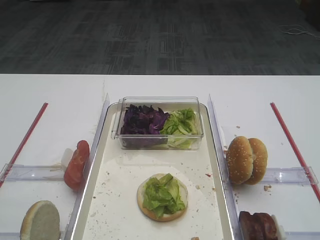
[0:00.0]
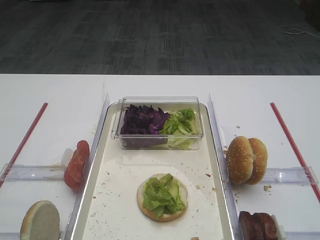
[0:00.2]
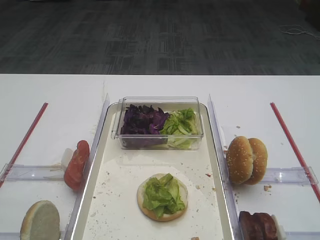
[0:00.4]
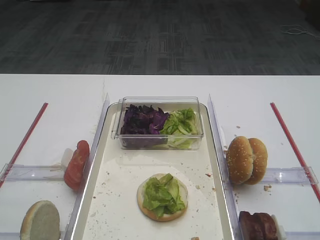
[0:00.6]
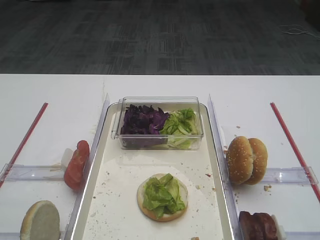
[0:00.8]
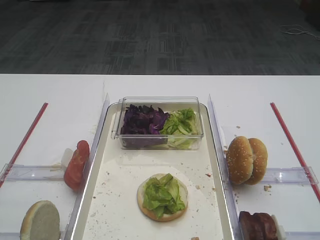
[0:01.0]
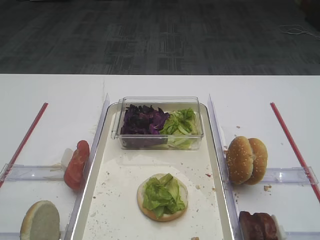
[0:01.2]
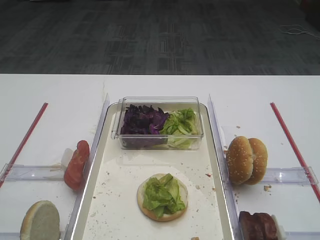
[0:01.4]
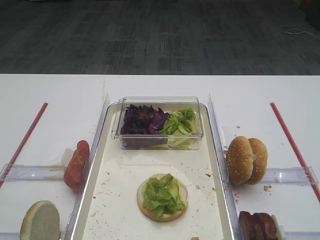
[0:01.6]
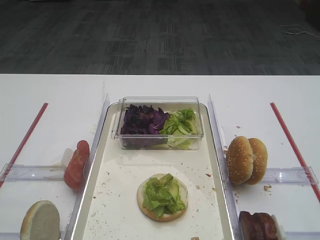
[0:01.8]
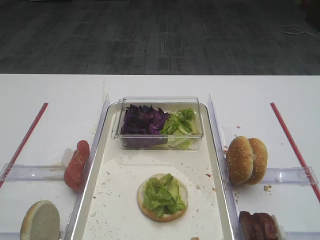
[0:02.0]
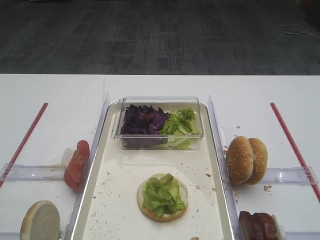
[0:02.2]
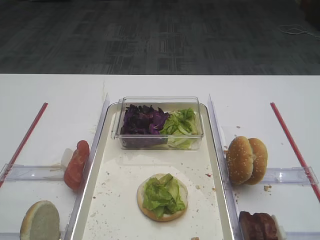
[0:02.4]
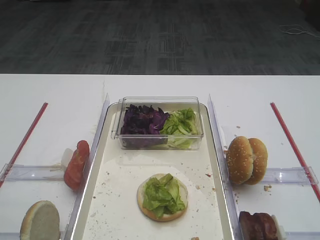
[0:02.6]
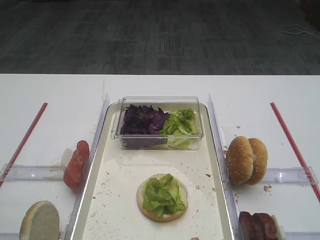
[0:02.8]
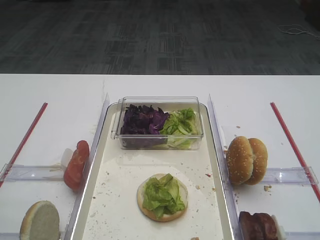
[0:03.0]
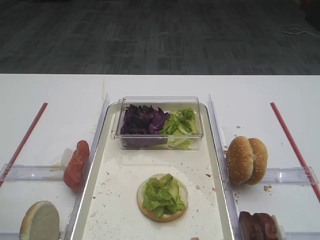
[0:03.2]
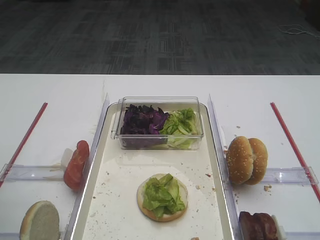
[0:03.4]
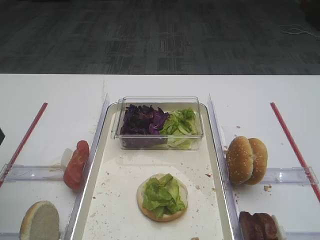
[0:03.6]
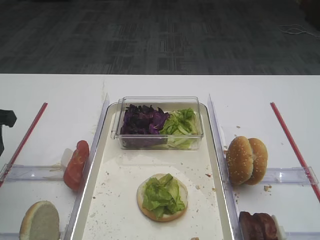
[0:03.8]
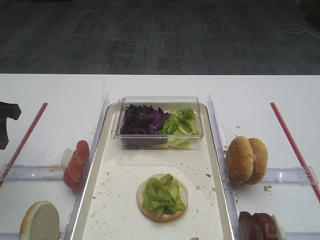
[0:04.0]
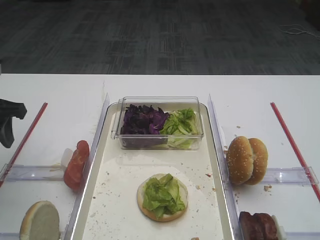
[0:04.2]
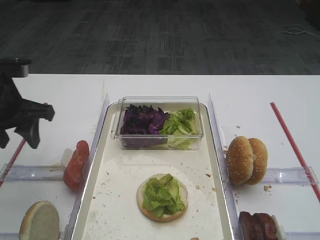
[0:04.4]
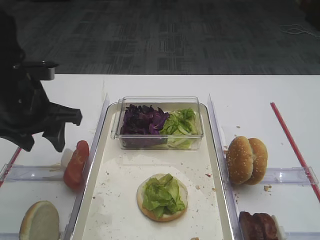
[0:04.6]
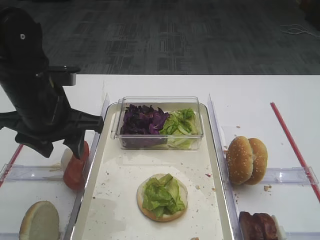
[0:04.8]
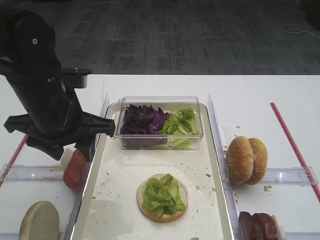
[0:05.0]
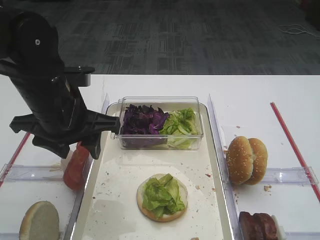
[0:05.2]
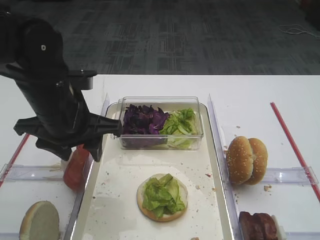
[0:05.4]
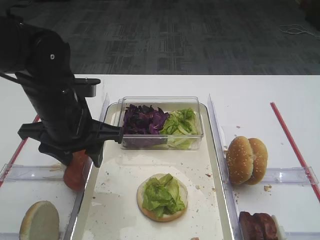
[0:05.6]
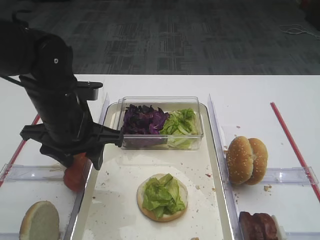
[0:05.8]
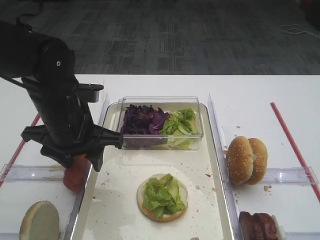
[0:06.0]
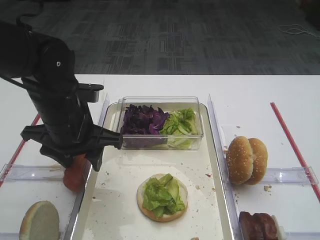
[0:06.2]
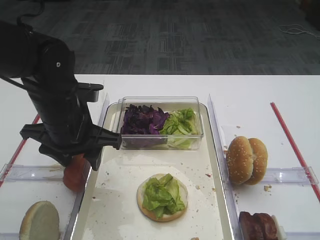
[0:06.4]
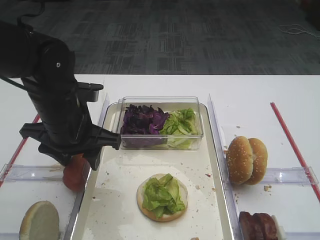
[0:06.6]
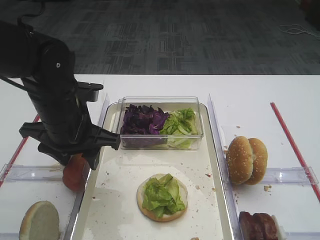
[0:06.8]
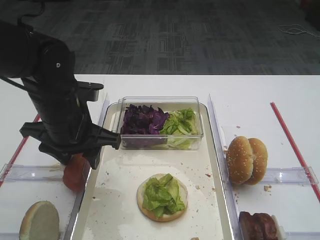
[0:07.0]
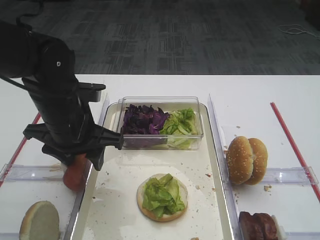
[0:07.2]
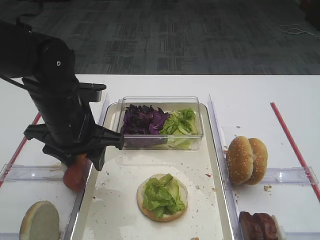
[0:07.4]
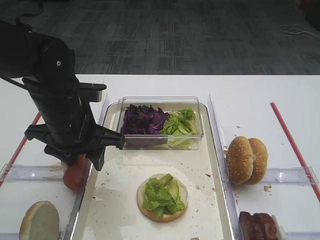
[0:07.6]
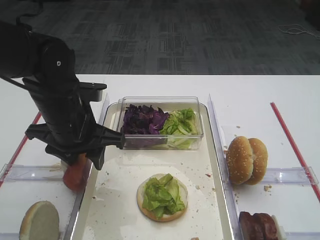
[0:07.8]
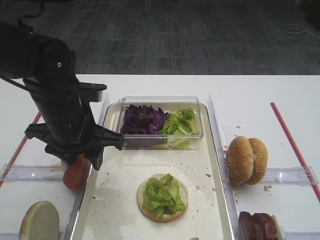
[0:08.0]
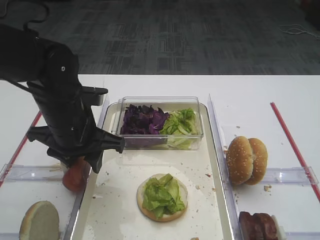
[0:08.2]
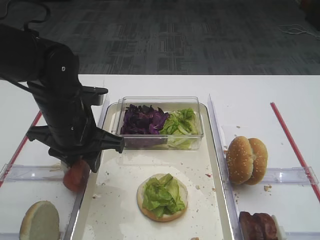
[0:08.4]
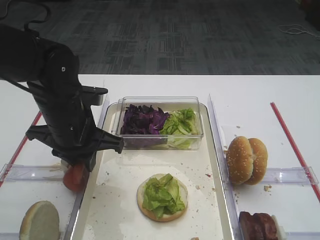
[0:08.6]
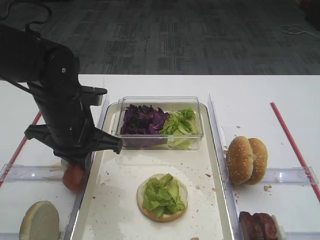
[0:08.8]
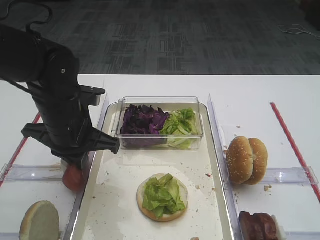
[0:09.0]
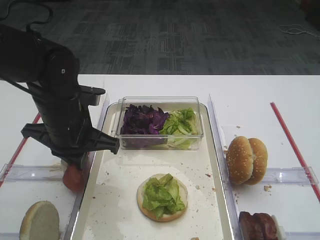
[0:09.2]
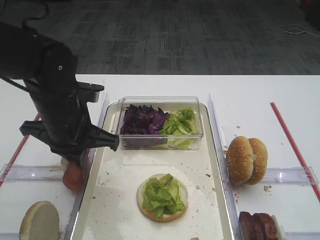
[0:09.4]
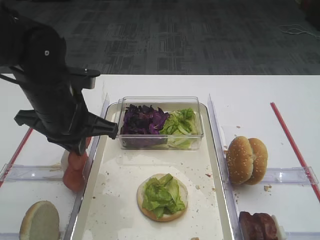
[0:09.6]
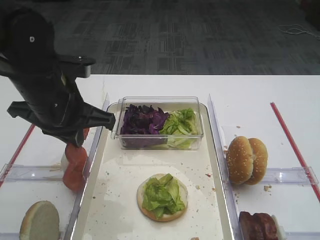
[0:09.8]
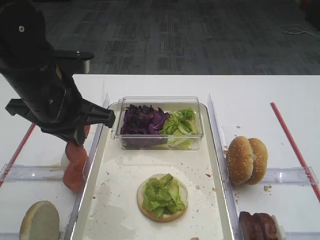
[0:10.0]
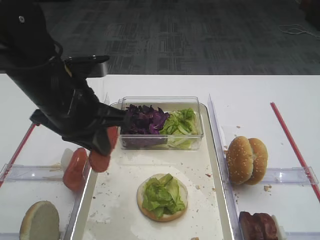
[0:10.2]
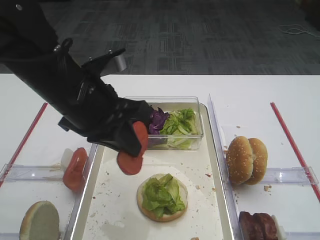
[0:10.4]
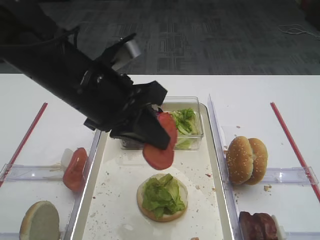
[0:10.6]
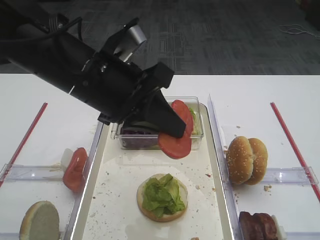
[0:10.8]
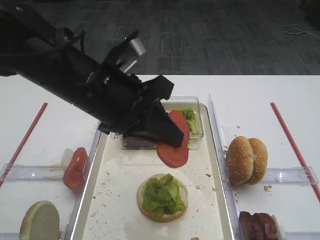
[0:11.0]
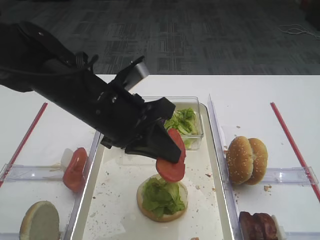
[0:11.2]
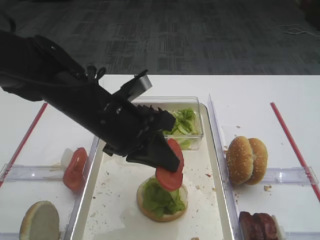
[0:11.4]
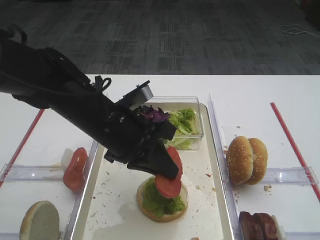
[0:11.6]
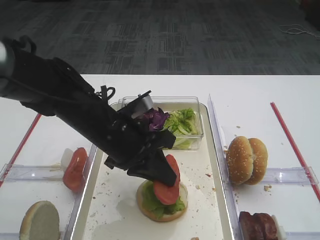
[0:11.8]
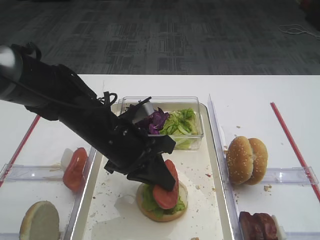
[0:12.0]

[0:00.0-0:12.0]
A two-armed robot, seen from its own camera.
Step, 0:00.0 to 0:09.8: Pick up the tomato slice with the left gripper.
0:03.0 to 0:04.4: The left gripper goes roughly 20 cm forward.
0:04.4 to 0:06.0: The left gripper shifts approximately 10 cm to the right.
0:06.0 to 0:07.6: The two grippers keep their place.
0:07.6 to 0:09.0: The left gripper closes its fingers.
0:09.0 to 0:10.4: The left gripper goes roughly 5 cm upward.
0:10.4 to 0:12.0: The left gripper heads downward, covering about 10 cm.

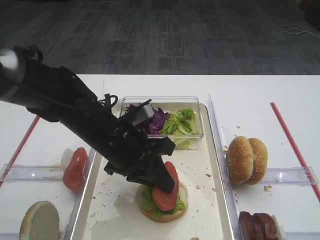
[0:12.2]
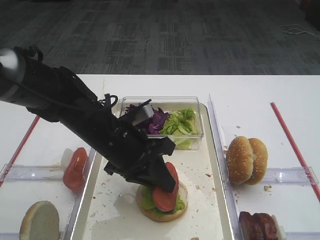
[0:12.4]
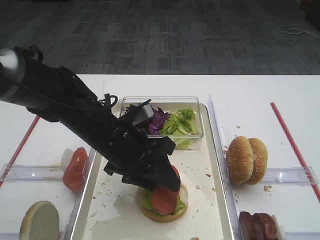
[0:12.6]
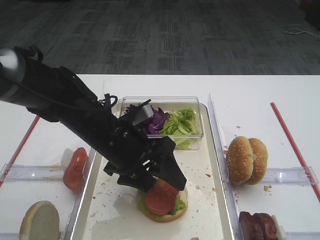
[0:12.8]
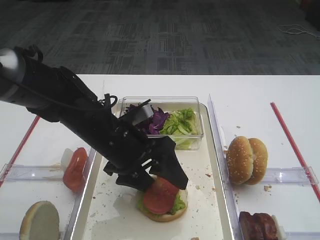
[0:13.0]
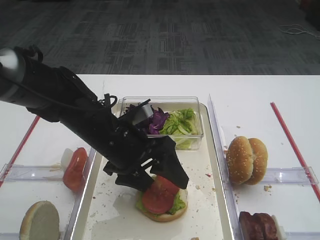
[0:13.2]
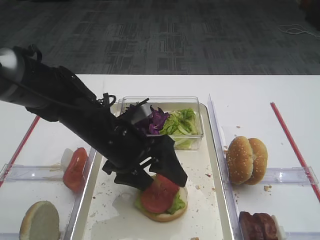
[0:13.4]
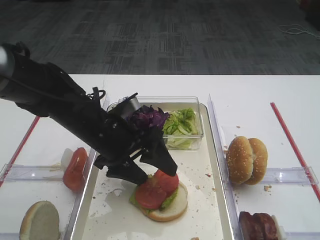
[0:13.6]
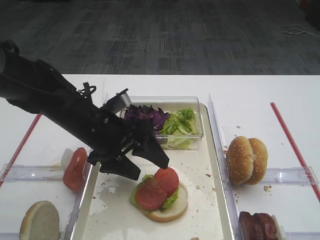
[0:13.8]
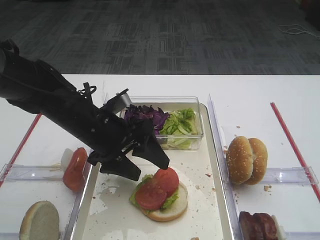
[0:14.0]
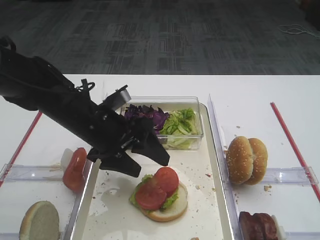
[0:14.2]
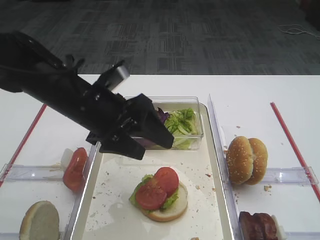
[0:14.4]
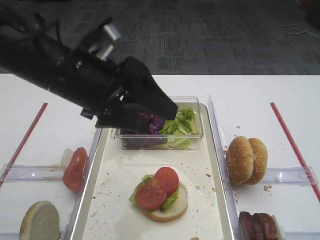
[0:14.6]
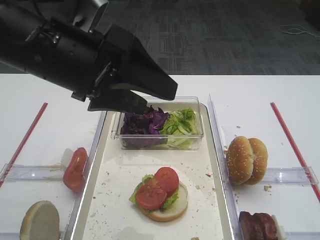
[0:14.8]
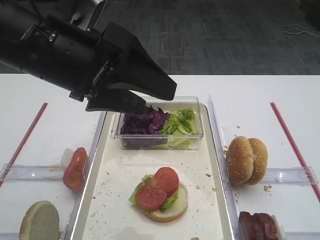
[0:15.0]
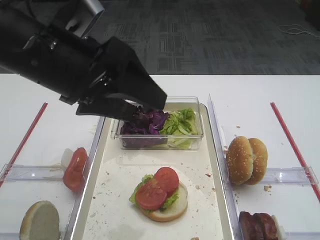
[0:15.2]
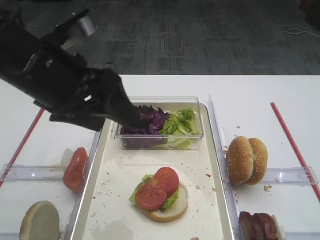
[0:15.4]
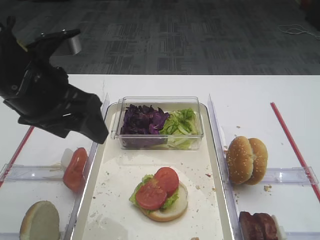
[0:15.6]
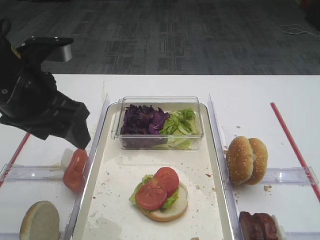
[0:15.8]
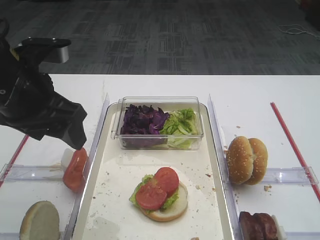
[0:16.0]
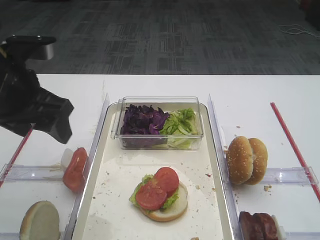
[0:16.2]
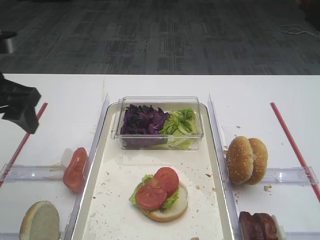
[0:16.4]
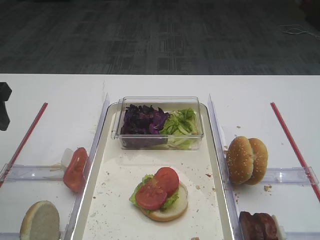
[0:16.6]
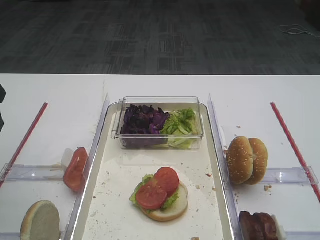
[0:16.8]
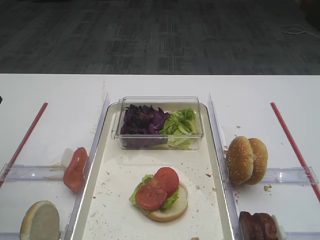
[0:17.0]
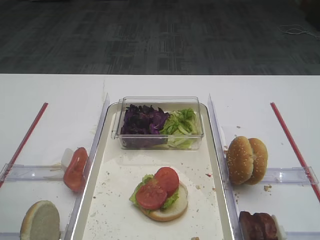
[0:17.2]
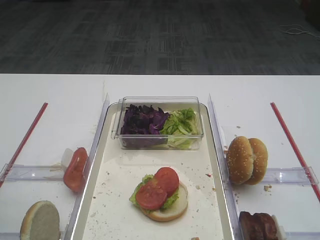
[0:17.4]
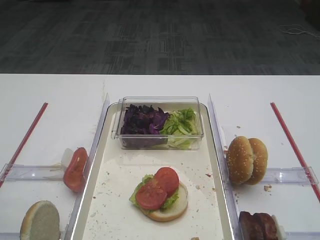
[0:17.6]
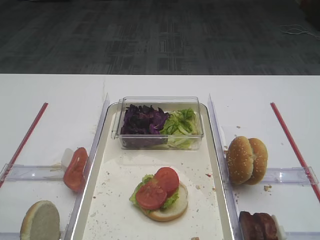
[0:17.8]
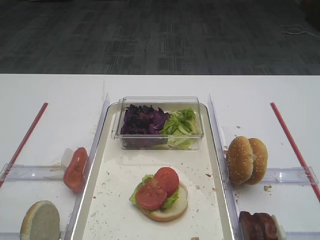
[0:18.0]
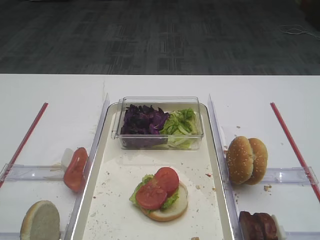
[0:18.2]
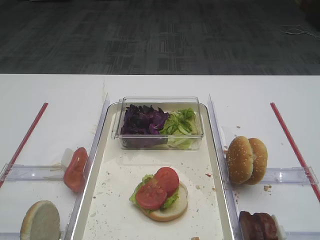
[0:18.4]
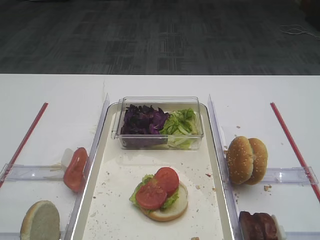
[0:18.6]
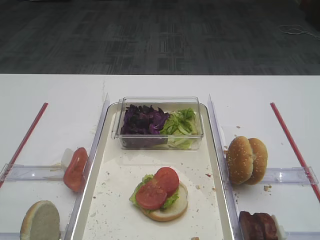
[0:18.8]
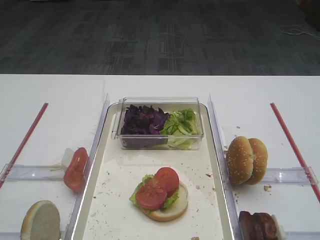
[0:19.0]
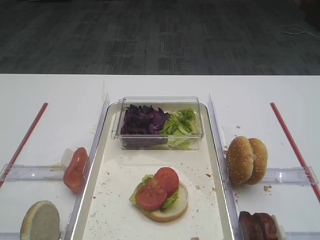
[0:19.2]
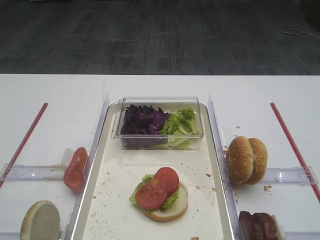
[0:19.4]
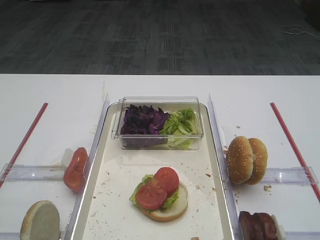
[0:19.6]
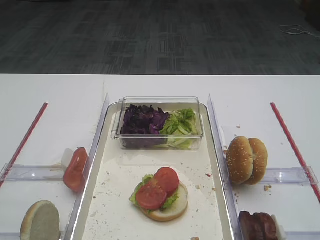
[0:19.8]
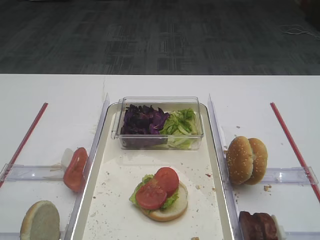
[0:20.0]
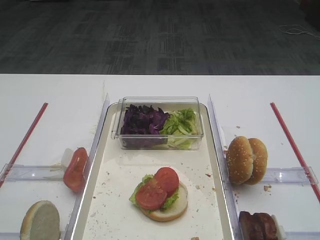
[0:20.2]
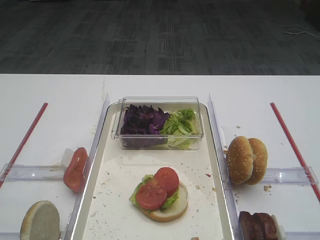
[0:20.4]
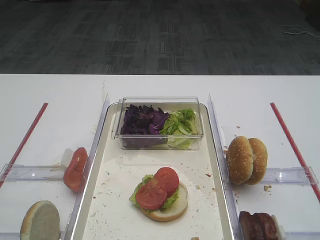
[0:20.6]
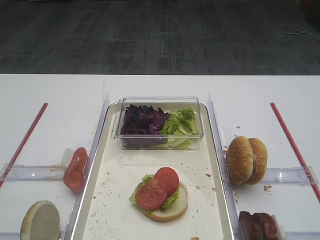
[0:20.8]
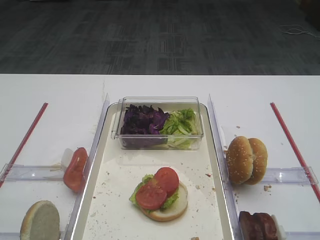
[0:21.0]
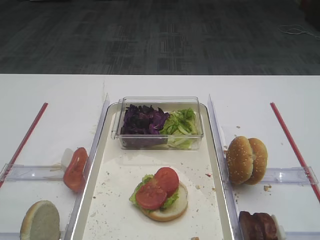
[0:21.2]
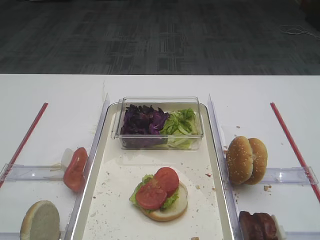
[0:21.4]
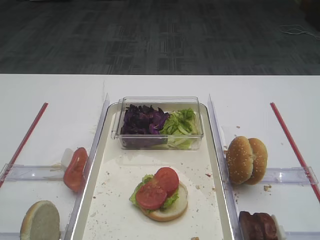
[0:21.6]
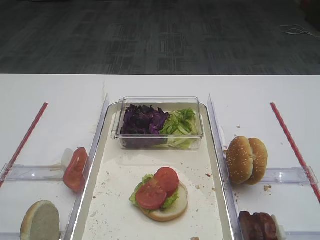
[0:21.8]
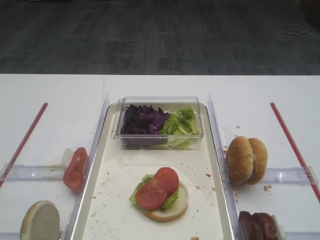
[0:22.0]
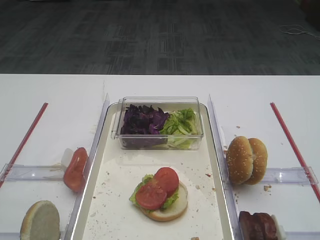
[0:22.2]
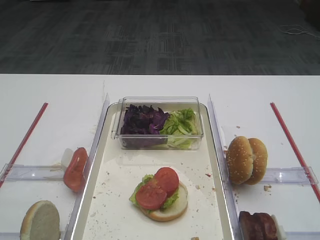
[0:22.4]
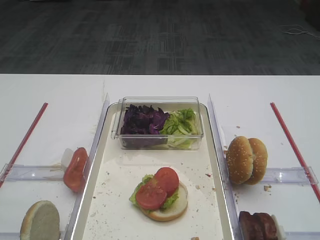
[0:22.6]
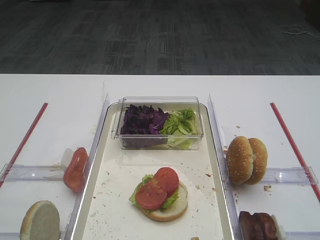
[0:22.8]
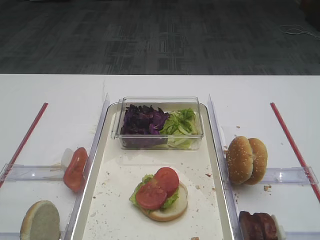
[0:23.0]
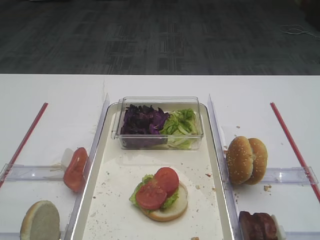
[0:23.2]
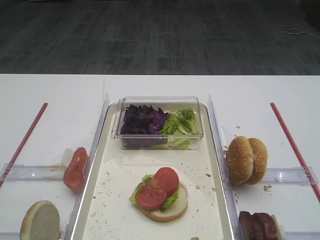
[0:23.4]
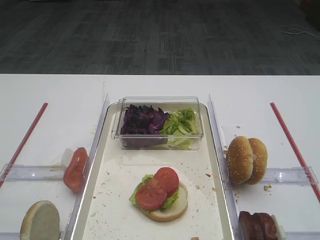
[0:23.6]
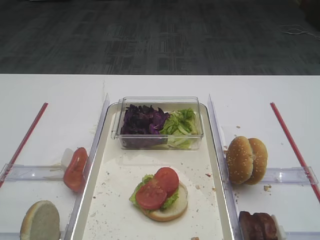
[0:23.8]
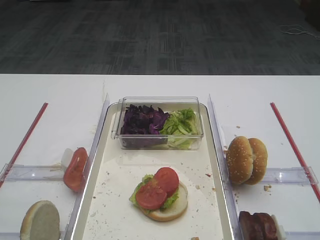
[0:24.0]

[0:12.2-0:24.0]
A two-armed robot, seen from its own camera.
Step, 0:12.2 to 0:14.2: Place the tomato slice on the lettuce leaf with the left gripper.
0:12.2 to 0:13.6: The left gripper opens up.
0:13.6 to 0:15.2: The left gripper is displaced upward by some 15 cm.
0:15.2 to 0:16.6: The left gripper heads to the left, covering about 15 cm.
0:16.6 to 0:18.2: The left gripper is displaced backward by some 20 cm.
0:19.6 to 0:24.0: Both grippers stay put.
